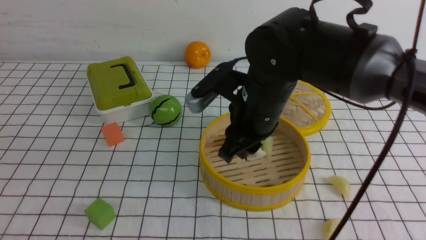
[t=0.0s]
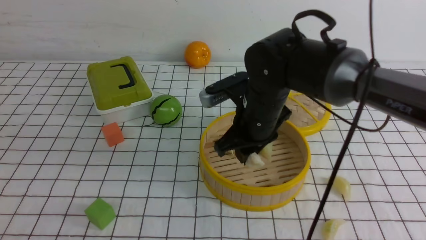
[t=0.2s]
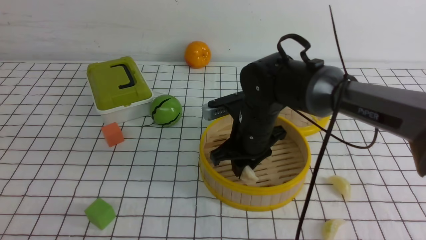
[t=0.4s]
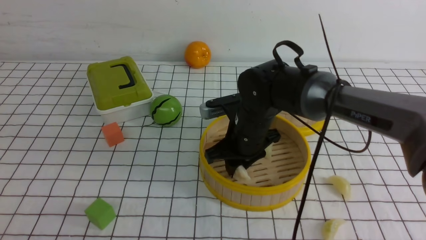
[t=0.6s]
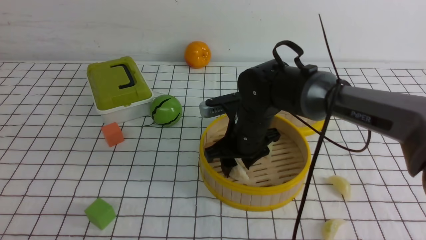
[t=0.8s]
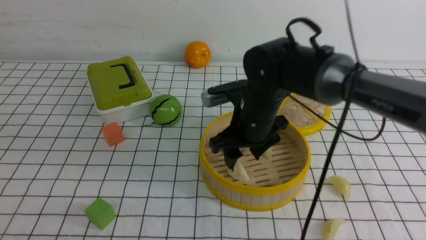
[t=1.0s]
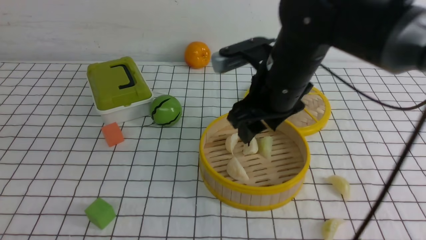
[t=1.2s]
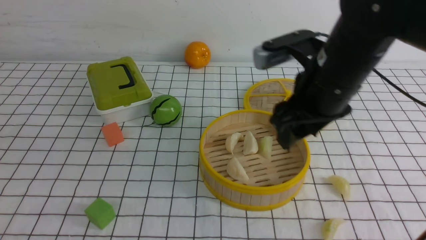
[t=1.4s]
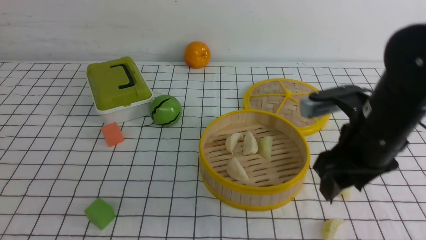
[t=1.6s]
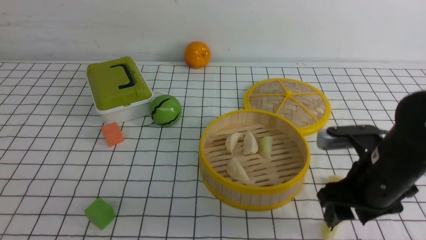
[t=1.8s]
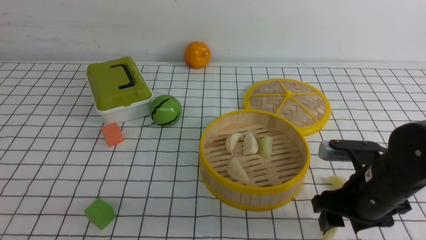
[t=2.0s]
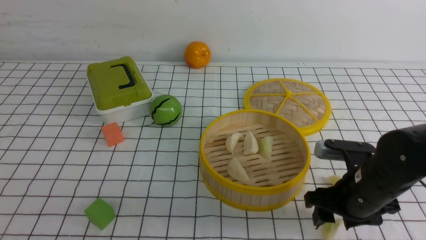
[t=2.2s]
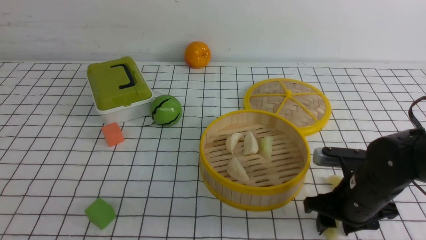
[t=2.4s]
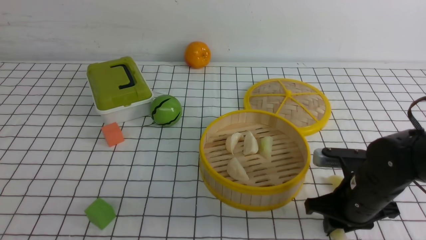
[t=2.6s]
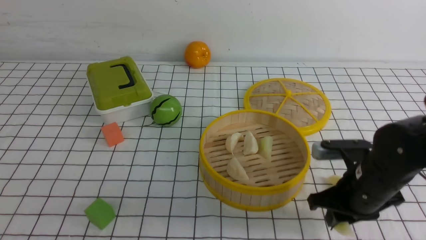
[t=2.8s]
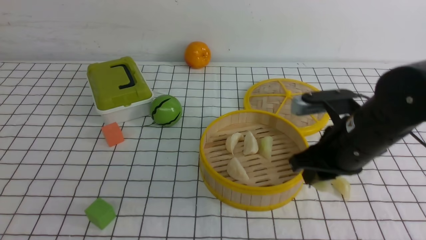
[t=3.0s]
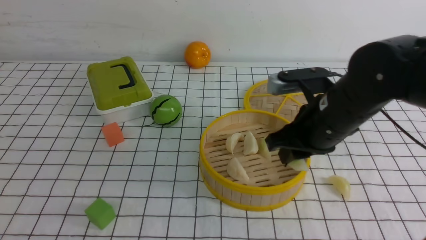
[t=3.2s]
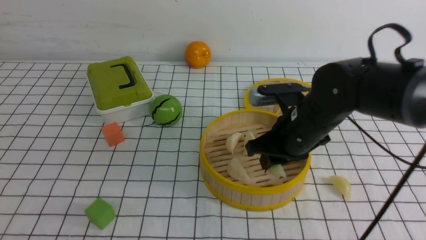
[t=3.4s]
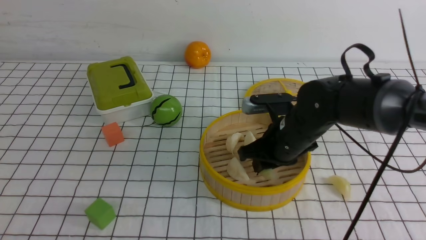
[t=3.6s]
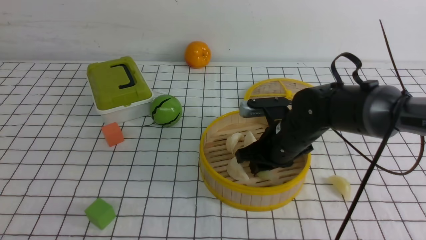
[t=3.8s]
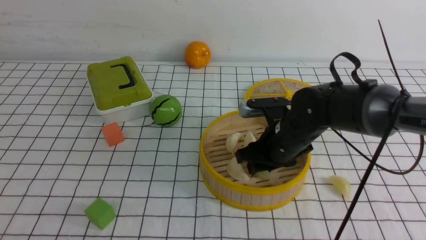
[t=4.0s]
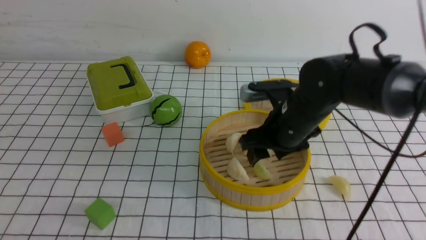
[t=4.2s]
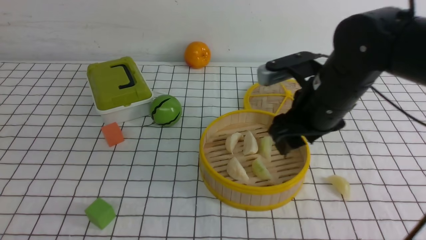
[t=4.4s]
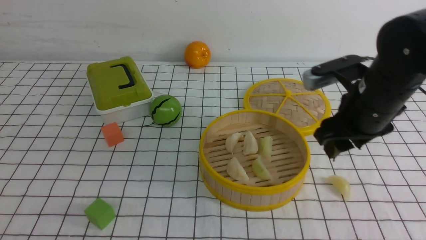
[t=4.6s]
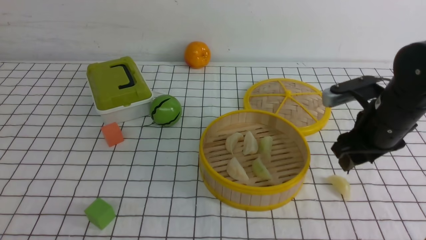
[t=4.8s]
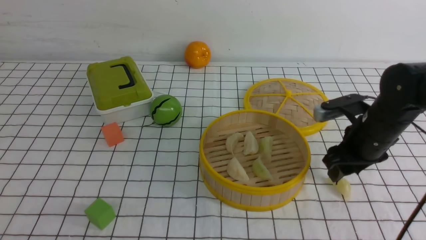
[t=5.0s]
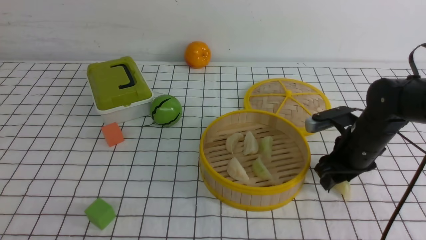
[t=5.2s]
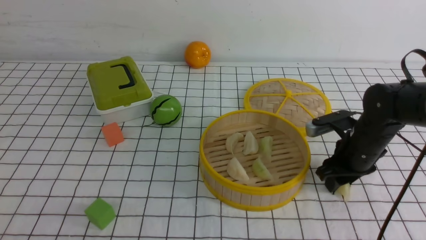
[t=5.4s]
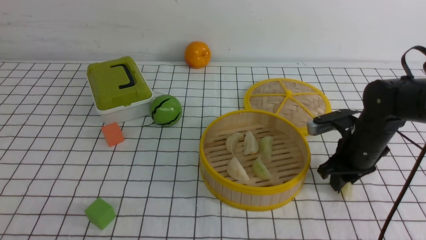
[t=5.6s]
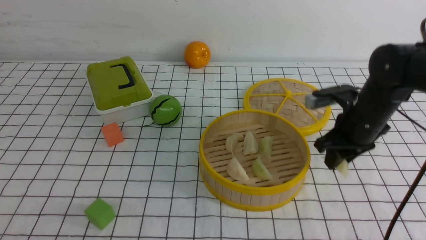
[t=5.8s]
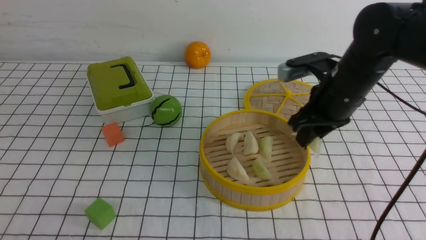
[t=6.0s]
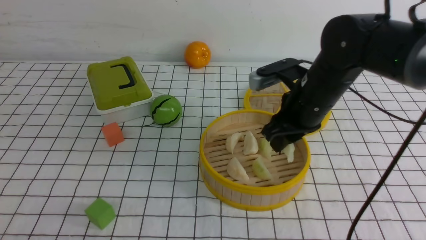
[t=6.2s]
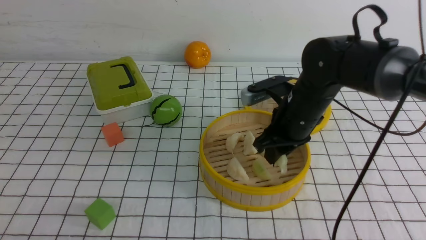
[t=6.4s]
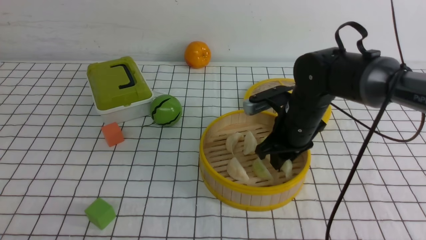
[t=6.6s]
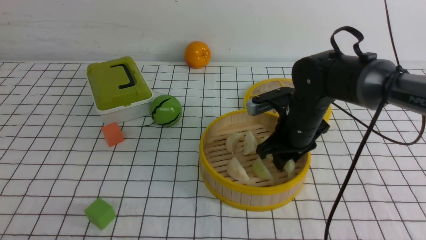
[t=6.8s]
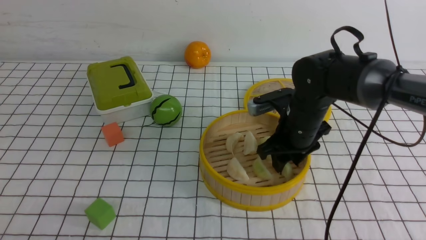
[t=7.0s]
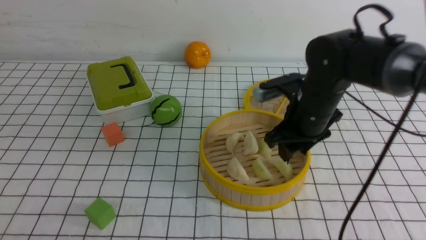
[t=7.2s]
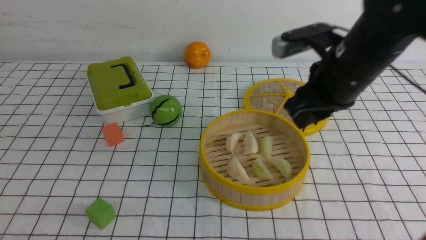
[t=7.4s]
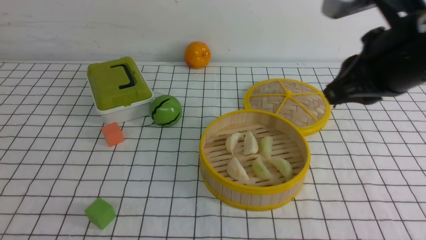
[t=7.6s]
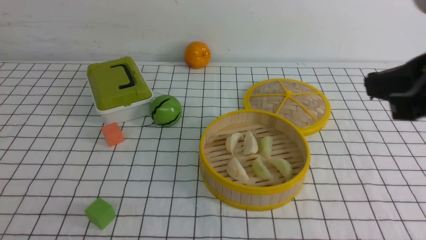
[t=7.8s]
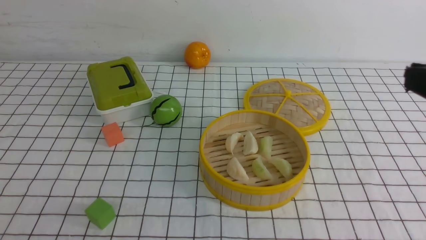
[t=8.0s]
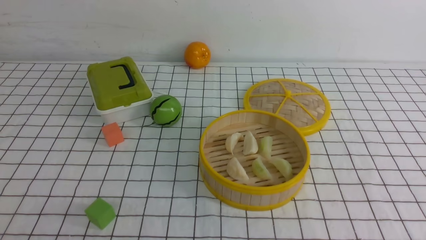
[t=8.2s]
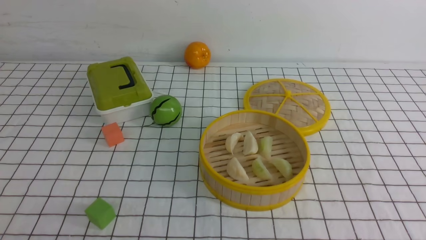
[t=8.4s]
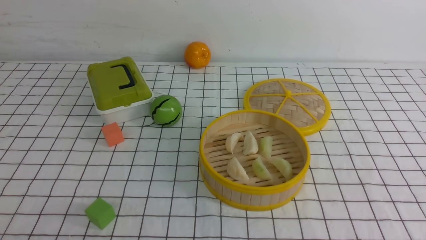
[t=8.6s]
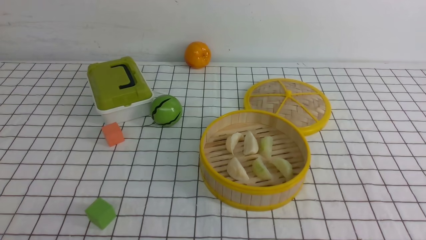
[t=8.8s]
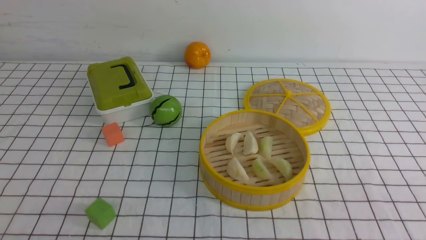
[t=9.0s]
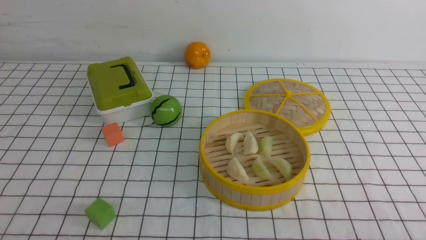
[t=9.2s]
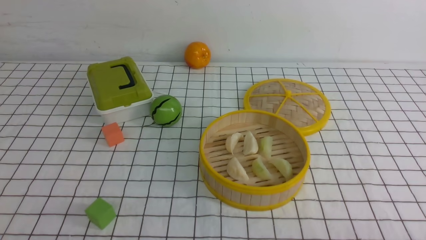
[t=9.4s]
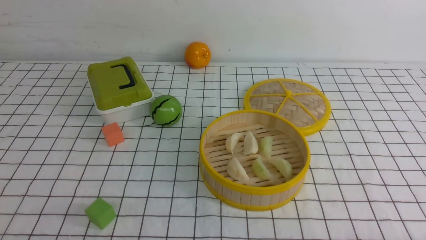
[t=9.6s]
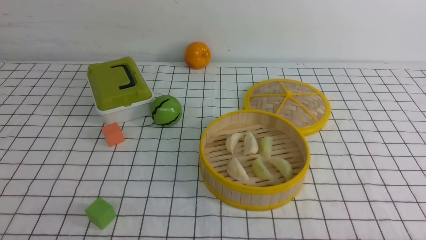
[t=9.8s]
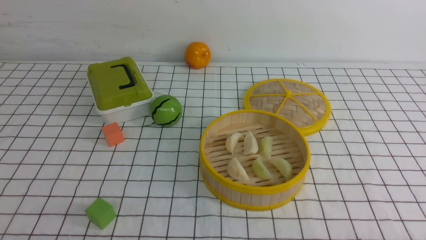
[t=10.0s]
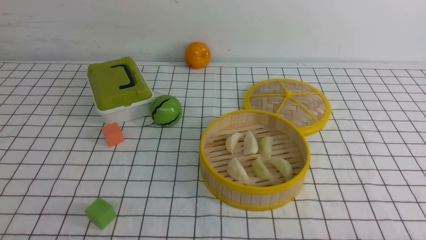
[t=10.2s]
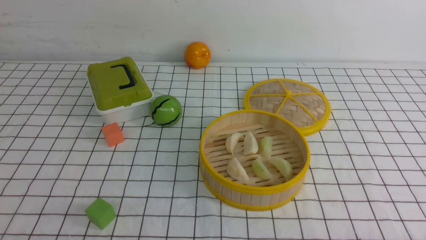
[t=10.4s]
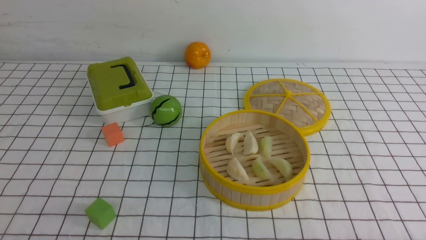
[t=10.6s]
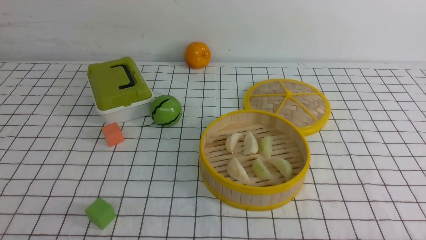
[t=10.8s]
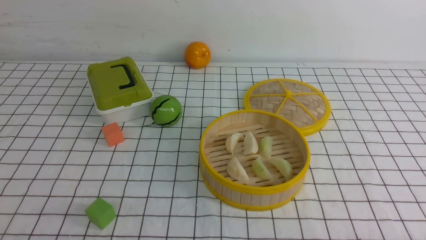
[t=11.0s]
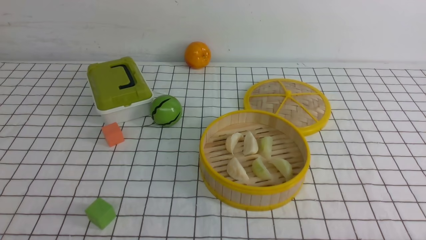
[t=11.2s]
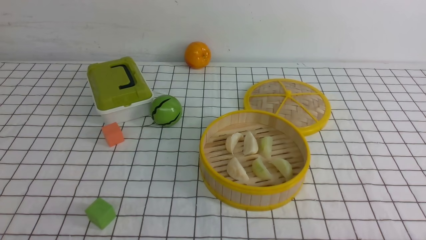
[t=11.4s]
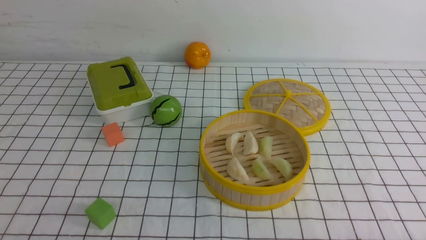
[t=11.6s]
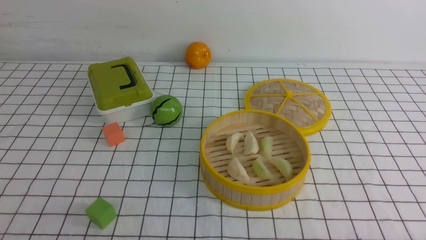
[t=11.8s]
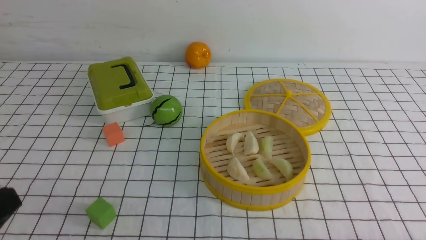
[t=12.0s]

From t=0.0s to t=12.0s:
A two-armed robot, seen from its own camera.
Task of the whole recording: put the dumplings into the steamer on the table with the white tablecloth.
Step, from t=0.0s to t=1.0s: use the right arm to put the dumpling into the steamer.
Step, from t=1.4s to t=2.8s: use the right arm to grab a dumpling.
Step, from t=3.2s to t=4.2s: use the right arm to put the dumpling into the steamer.
Step, from t=4.6s to t=6.0s: use the right arm to grab a dumpling.
Step, from t=6.4s to t=7.2s: use the right arm to put the dumpling into the steamer.
From t=0.0s to t=1.6s: The right gripper heads to the right, covering roughly 15 cm, and opens up.
From t=1.6s to t=3.0s: The right gripper reaches about 10 cm downward, then returns, and closes its fingers.
From t=3.0s to t=4.4s: The right gripper opens up.
From t=4.4s to t=6.0s: The right gripper reaches about 10 cm downward, then returns, and closes.
From t=6.0s to t=7.6s: The right gripper travels upward and backward by roughly 20 cm.
From t=7.6s to t=9.0s: The right gripper travels backward, downward and to the right by roughly 20 cm.

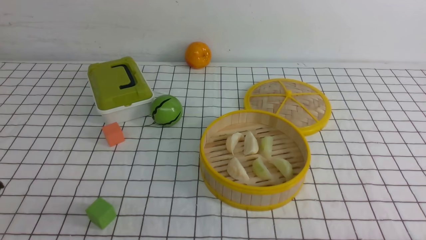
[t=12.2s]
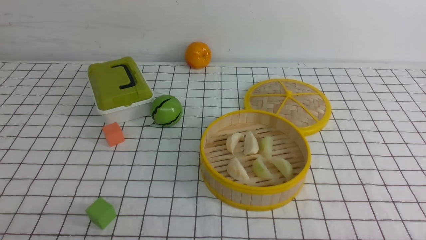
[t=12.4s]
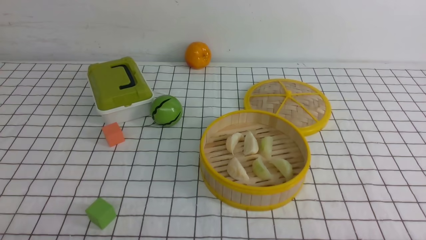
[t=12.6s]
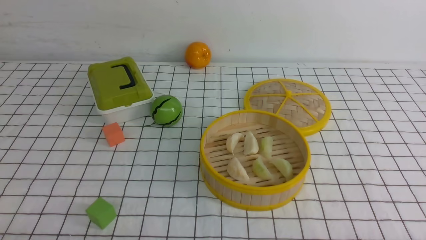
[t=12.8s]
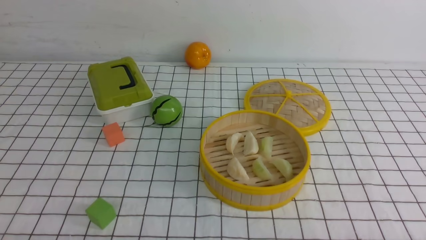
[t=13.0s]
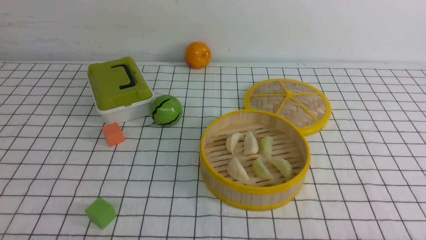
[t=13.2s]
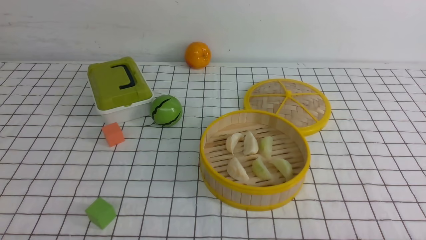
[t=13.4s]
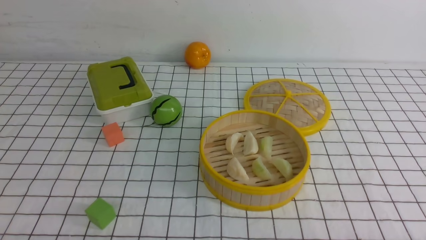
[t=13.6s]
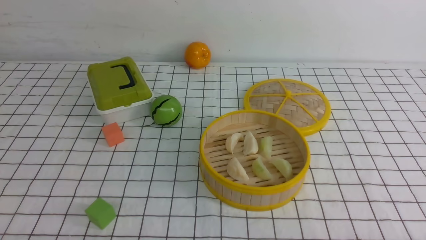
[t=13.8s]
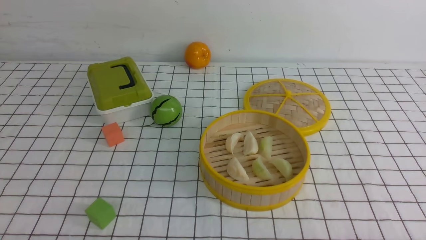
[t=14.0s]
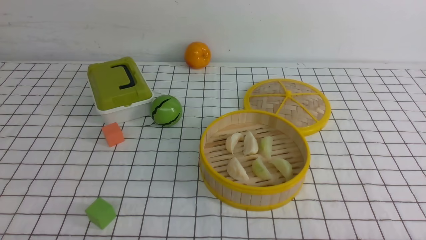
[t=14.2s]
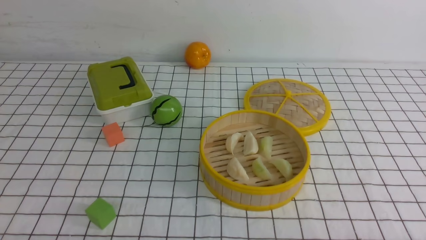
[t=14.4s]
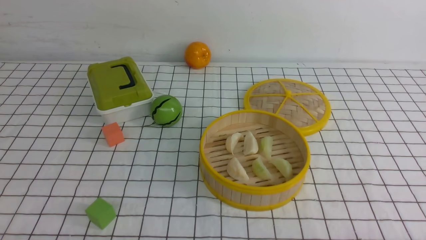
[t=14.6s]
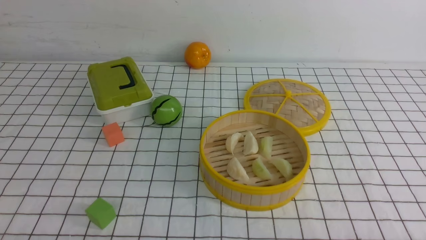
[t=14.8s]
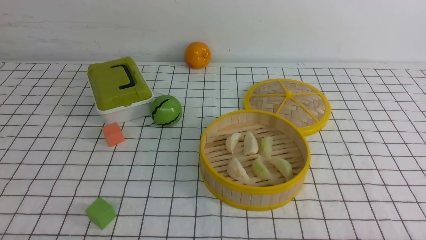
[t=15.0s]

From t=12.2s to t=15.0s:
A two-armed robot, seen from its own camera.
Task of the whole recording: put the dumplings into the steamer on the table with the white tablecloth.
From t=13.6s to t=15.0s: Both grippers stay about where they are.

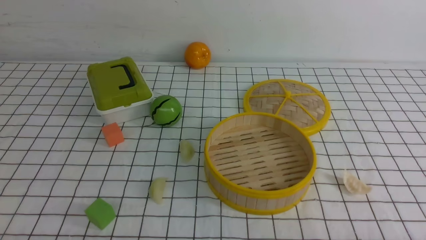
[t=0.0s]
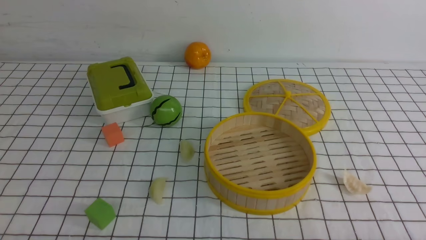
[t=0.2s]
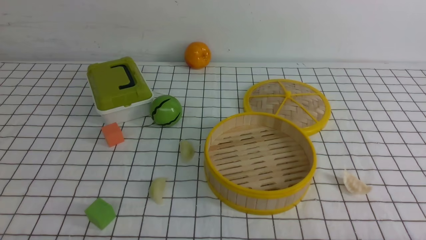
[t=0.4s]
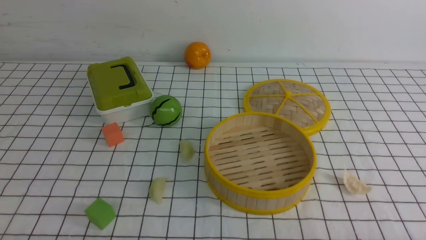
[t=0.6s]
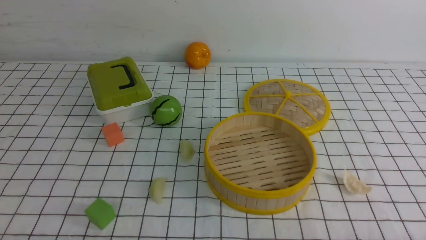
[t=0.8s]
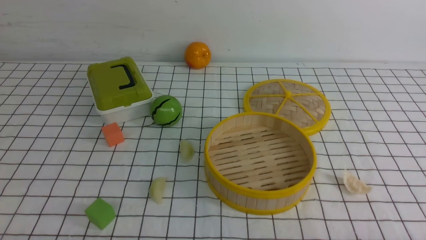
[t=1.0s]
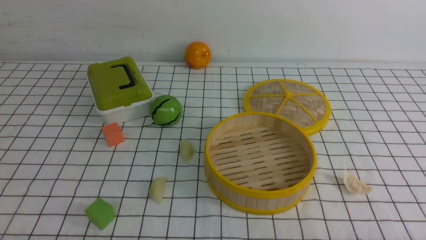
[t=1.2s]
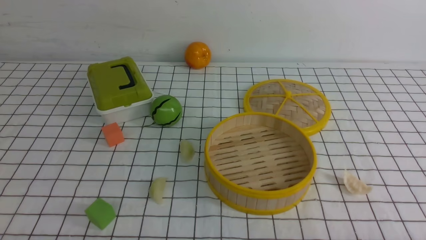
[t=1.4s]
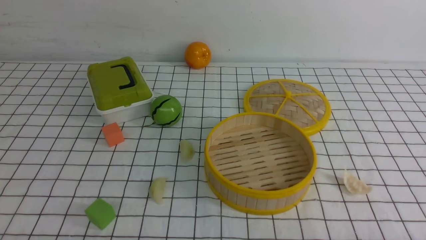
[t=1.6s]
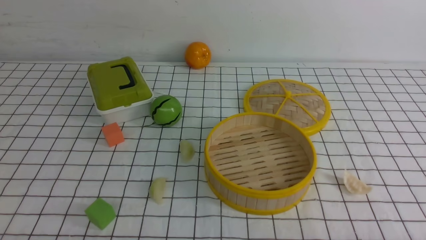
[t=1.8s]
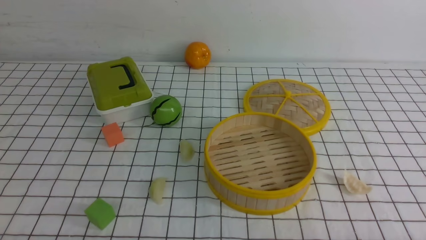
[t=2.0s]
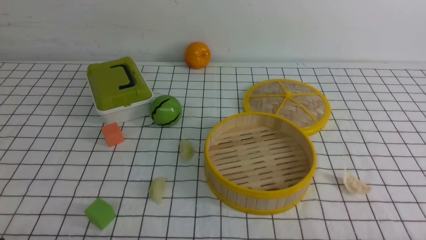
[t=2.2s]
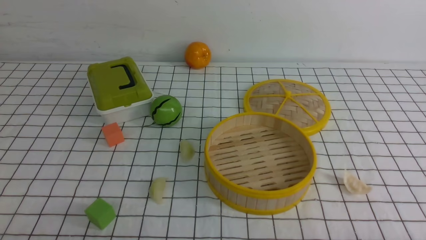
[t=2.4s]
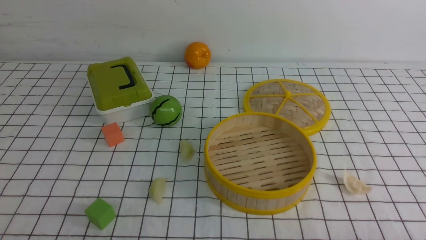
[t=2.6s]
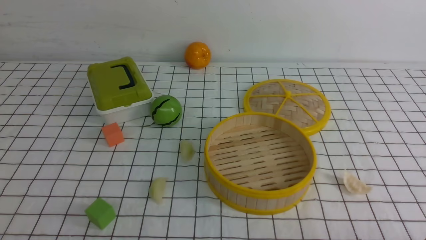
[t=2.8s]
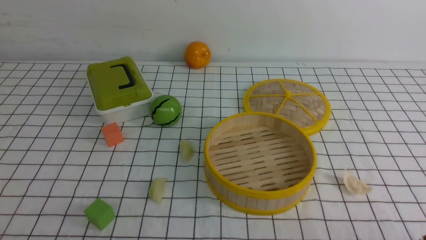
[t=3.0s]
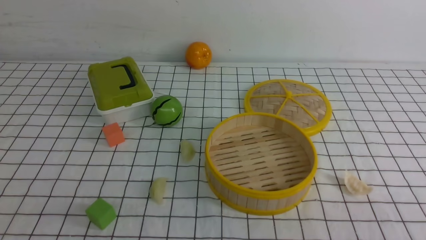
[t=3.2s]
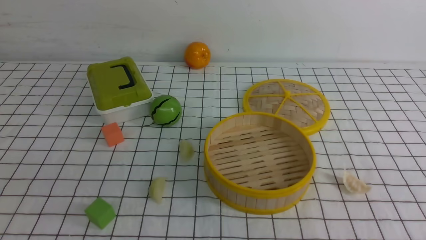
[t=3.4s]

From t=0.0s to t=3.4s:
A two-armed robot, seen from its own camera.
Task of the whole recording: put the dumplings into the steamer on the table with the white tablecloth.
From t=0.0s to t=1.6s: Both grippers stay put.
